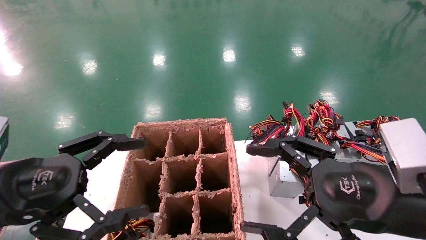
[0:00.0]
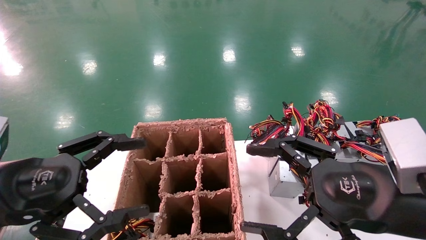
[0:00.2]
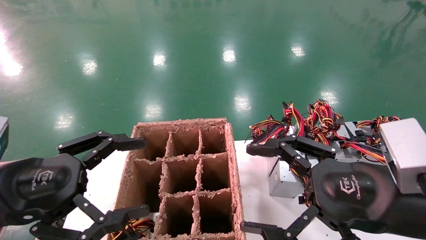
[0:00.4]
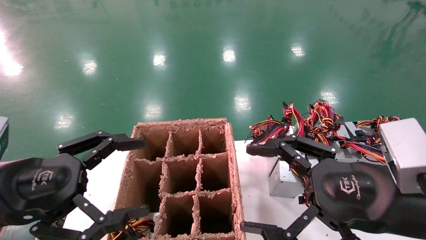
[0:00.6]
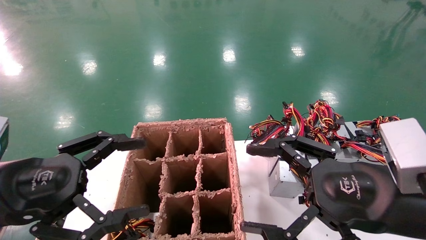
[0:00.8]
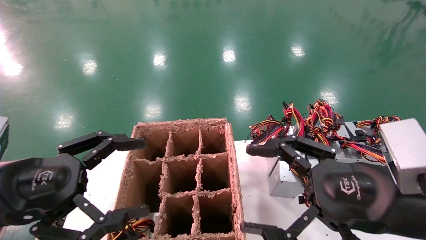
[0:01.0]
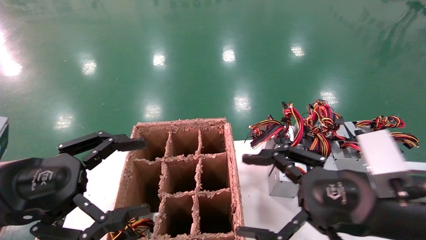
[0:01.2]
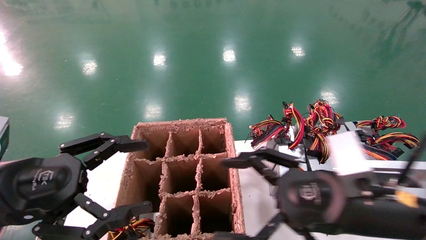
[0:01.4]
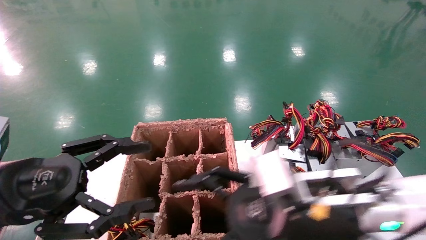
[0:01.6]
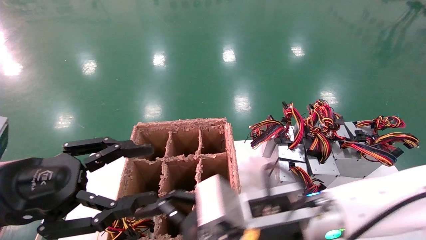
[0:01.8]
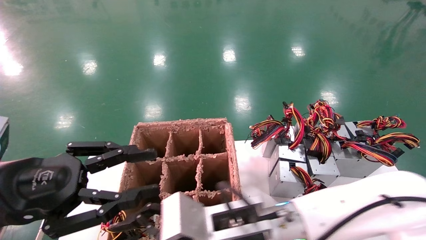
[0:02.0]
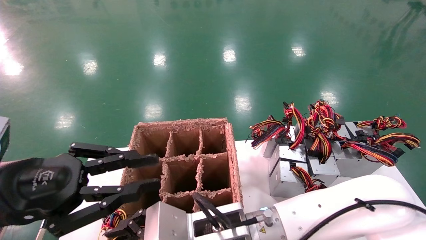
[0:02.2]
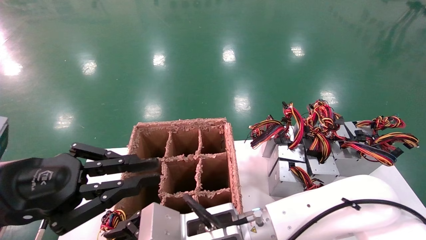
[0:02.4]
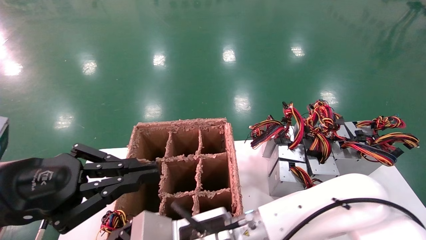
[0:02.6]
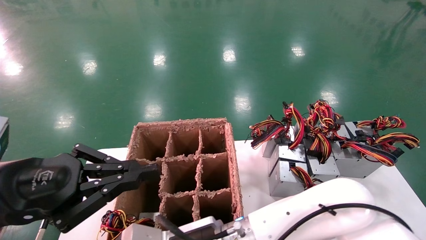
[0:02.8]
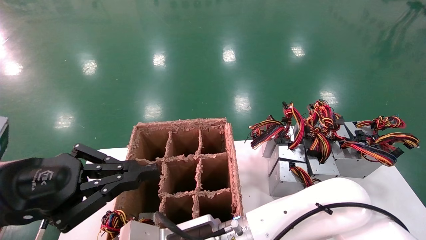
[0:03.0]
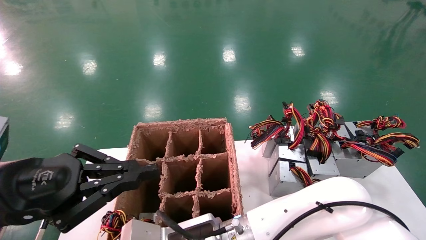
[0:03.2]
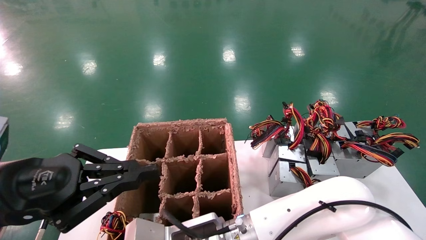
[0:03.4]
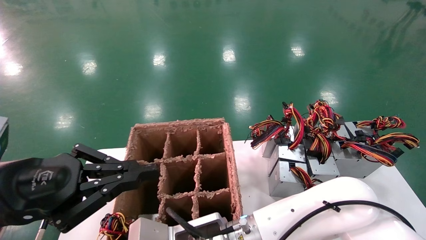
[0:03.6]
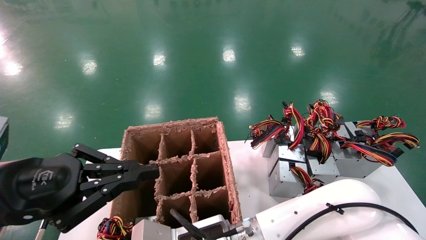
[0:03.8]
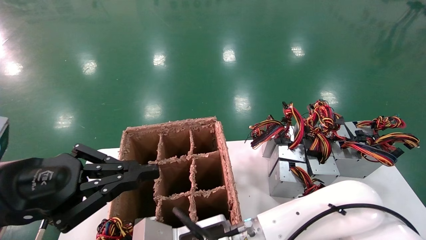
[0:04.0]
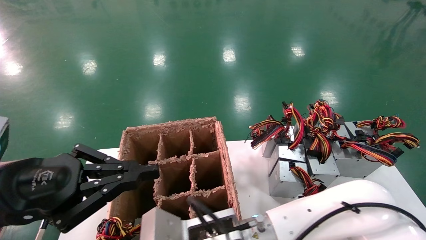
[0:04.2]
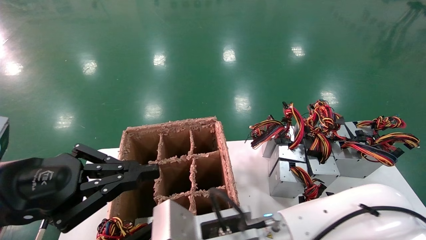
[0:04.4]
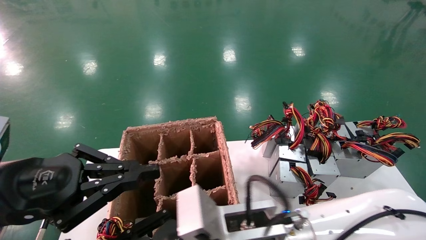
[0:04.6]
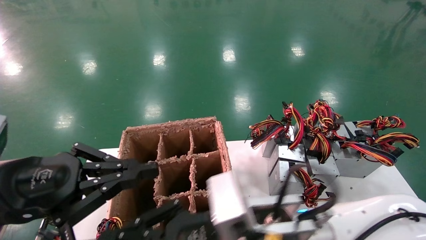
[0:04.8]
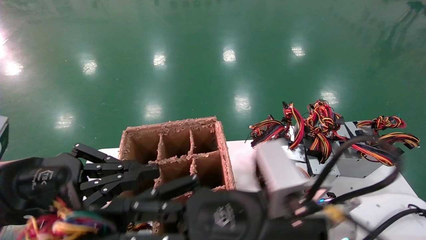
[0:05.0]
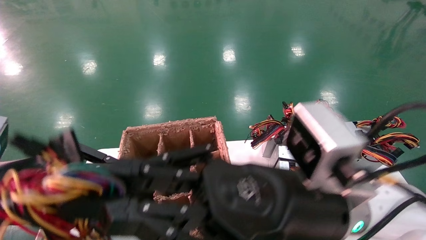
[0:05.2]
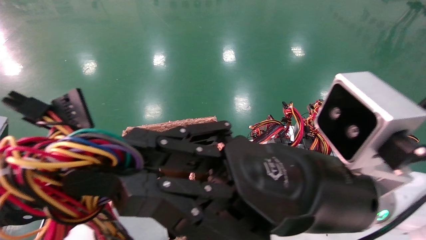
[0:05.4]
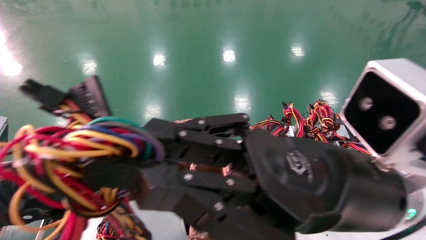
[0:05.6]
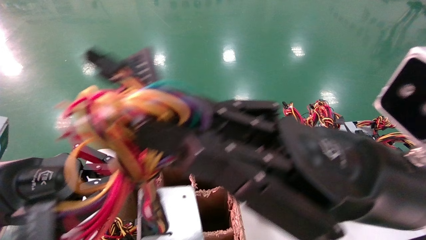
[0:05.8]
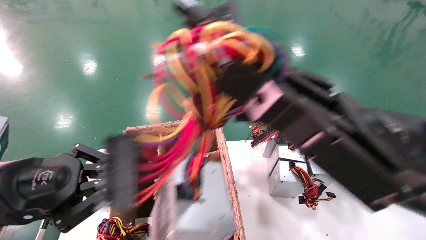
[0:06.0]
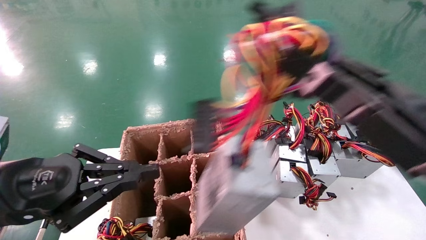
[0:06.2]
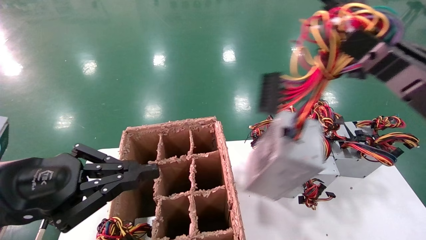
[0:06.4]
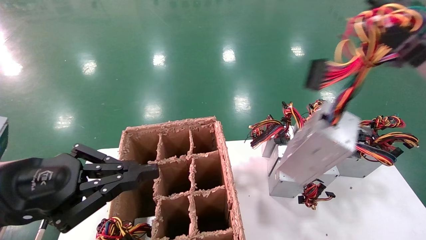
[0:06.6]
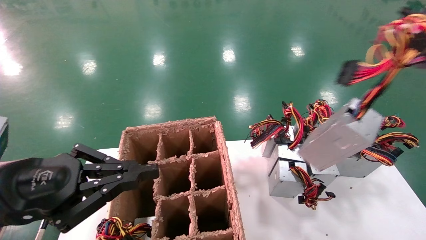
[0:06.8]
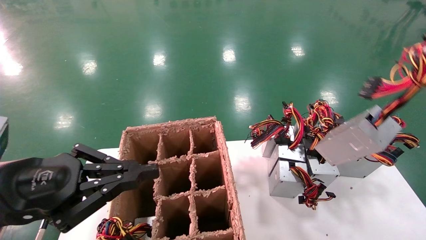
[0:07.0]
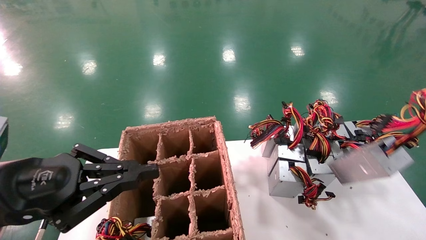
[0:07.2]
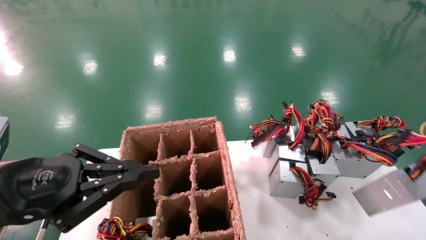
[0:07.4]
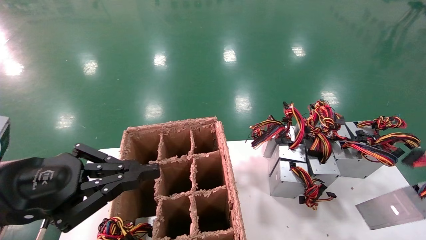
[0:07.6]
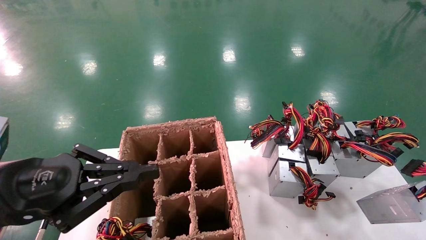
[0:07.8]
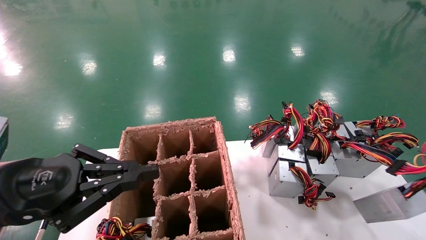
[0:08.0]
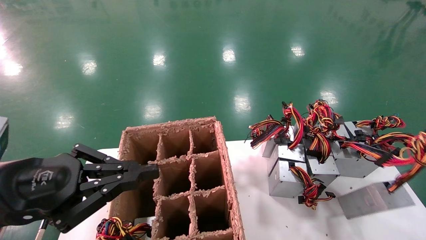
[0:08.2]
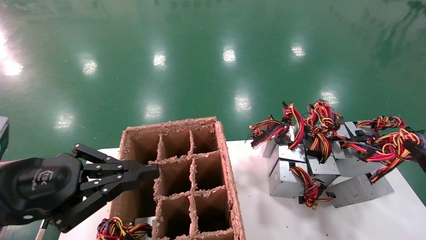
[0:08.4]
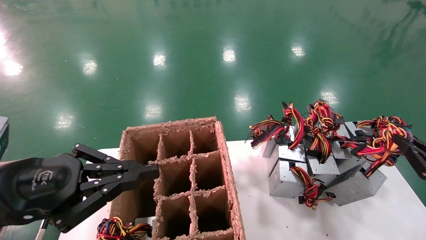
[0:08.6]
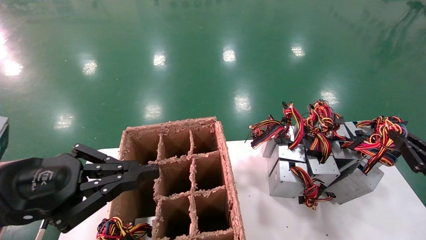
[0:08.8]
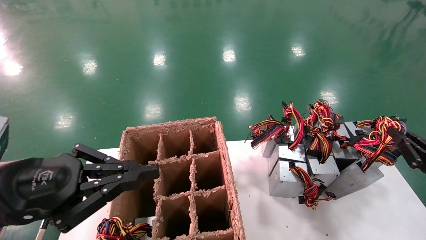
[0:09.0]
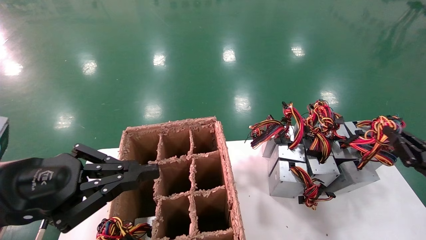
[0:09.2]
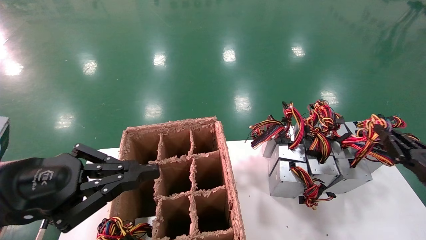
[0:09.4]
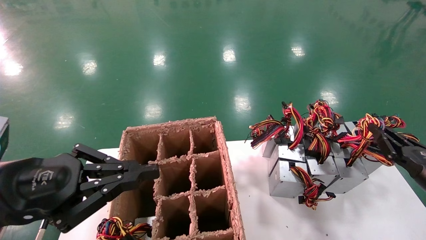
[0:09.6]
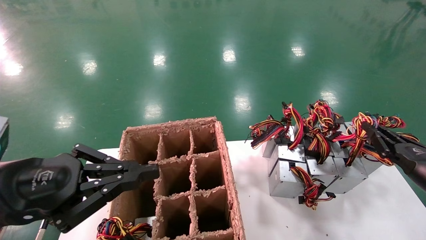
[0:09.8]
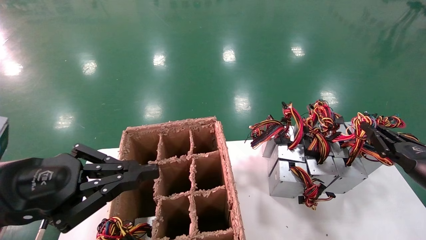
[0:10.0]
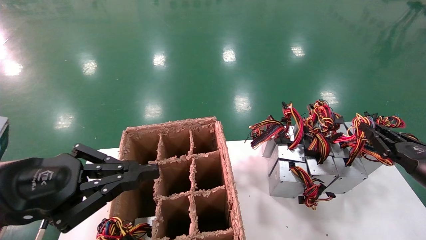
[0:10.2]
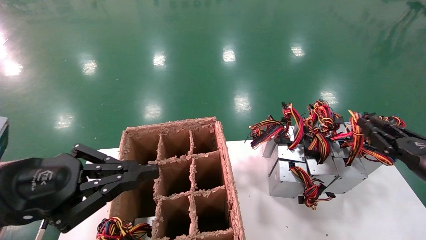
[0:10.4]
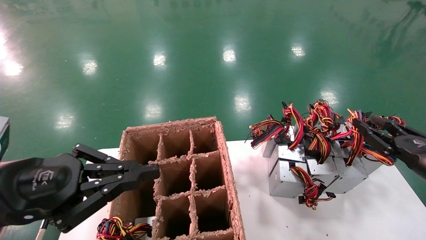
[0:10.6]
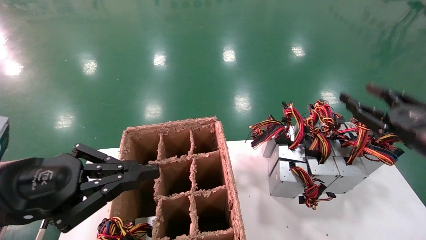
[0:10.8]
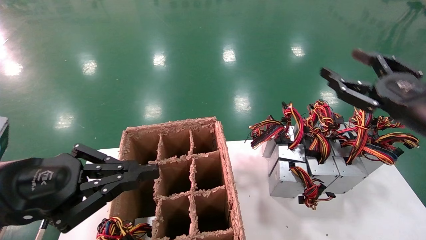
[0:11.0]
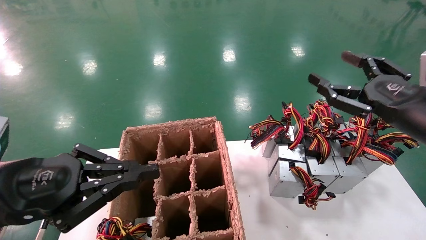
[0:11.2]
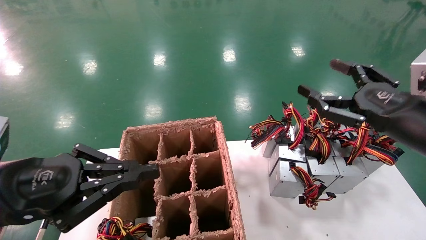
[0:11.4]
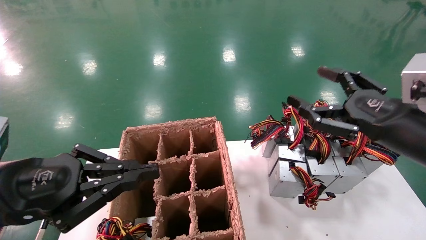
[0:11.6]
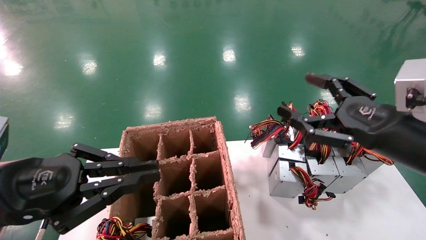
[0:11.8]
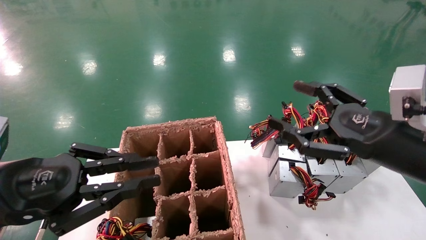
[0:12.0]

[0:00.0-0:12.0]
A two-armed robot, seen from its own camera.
Step, 0:01.4 to 0:04.0: Grab the main unit power supply from the containment box.
Step, 0:04.2 to 0:11.0: Place the main unit power supply in the designated area.
0:00.0 to 0:01.6: The right gripper travels to the left by some 10 cm.
0:01.6 to 0:03.0: The right gripper moves to the left and downward, about 15 cm, while the left gripper closes up.
0:03.0 to 0:04.4: The right gripper changes place by approximately 5 cm, and closes up.
0:04.4 to 0:06.0: The right gripper is displaced to the right and upward by some 20 cm.
0:06.0 to 0:07.6: The right gripper is displaced to the right by about 30 cm.
0:07.6 to 0:09.0: The right gripper heads forward, covering about 15 cm.
0:09.0 to 0:10.4: The right gripper ends up some 5 cm from where it was.
0:10.4 to 0:12.0: The right gripper heads to the left and upward, covering approximately 15 cm, and opens up.

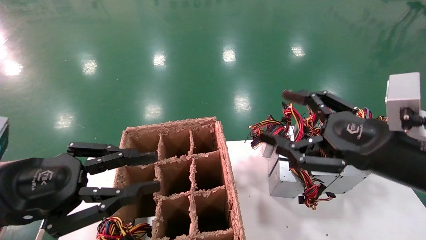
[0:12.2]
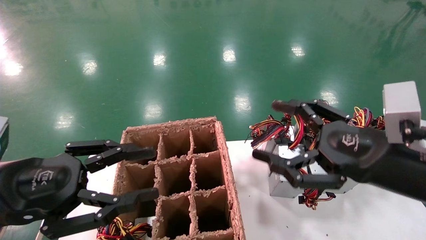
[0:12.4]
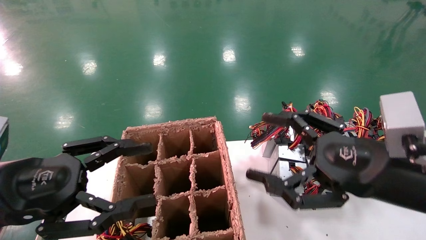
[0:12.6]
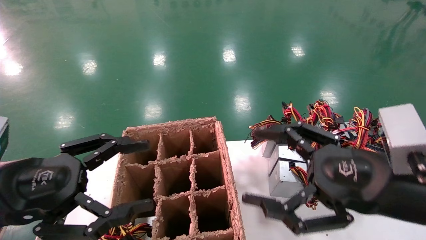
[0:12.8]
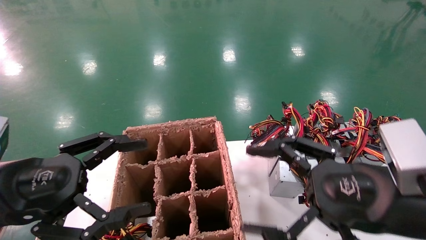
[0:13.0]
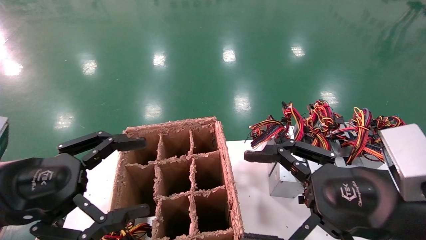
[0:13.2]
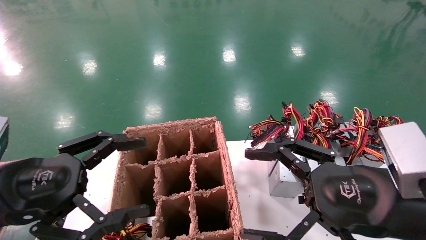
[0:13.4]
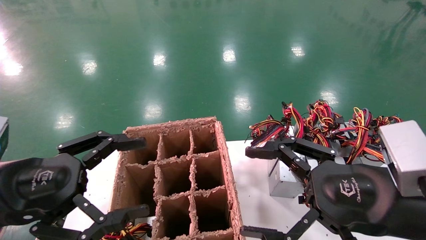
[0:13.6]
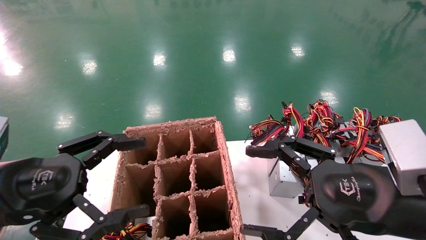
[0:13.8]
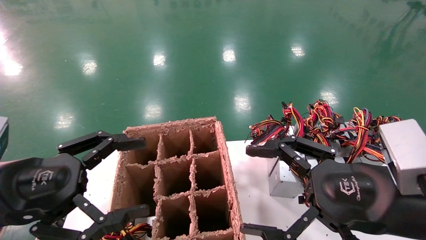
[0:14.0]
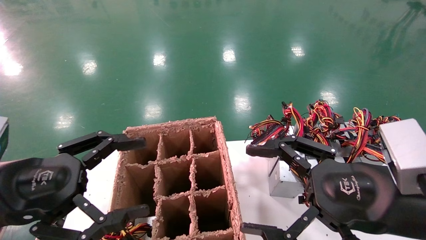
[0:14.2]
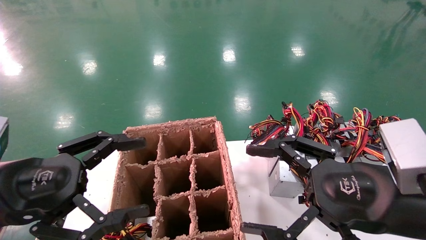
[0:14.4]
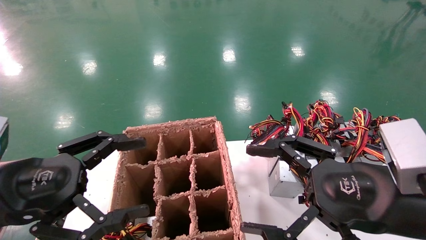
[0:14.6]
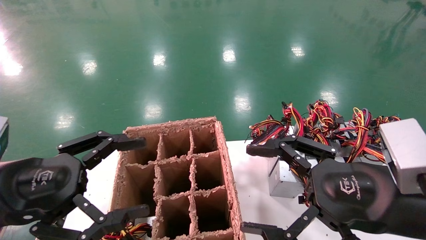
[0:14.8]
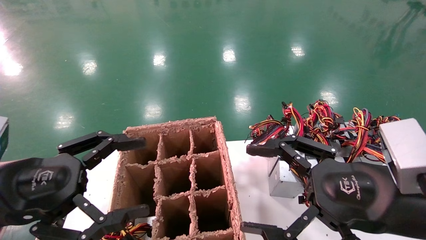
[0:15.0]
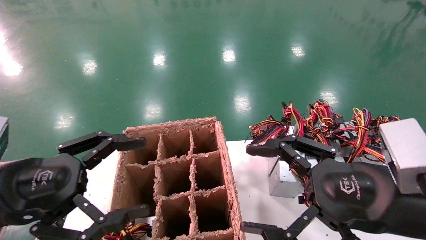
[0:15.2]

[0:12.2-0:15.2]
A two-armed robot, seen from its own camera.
0:12.2 to 0:13.8: The left gripper opens its fingers. The right gripper shifts by about 5 cm.
0:13.8 to 0:15.2: Both grippers stay put.
